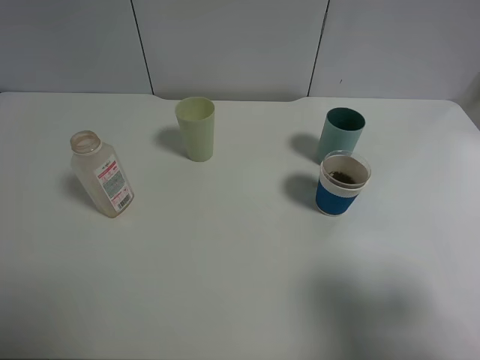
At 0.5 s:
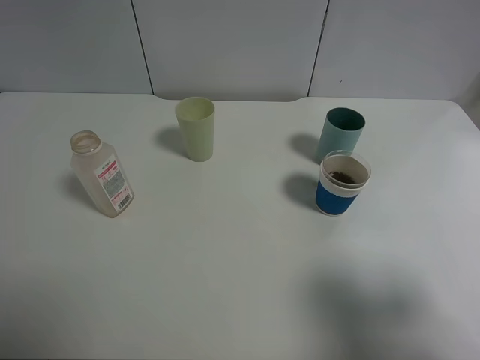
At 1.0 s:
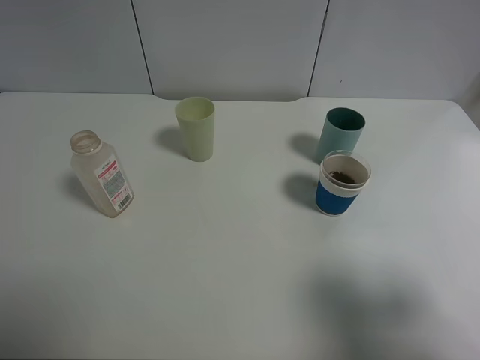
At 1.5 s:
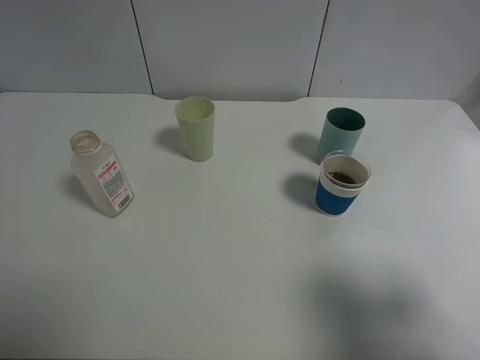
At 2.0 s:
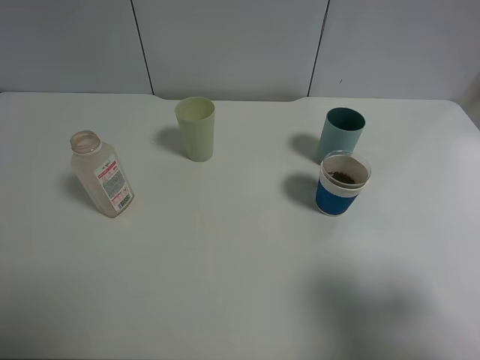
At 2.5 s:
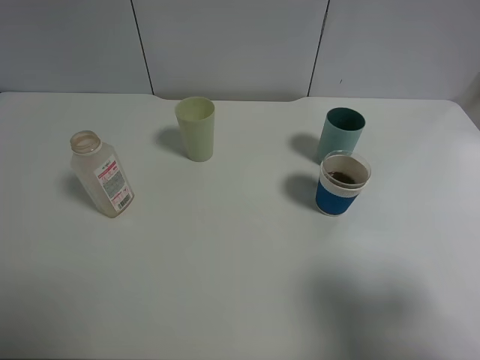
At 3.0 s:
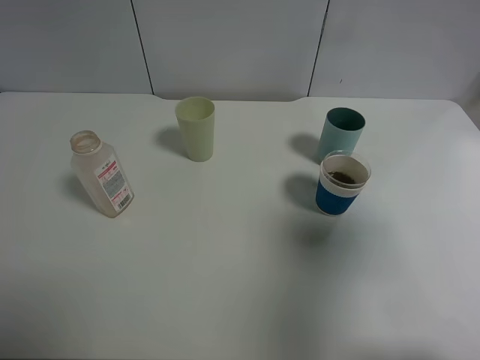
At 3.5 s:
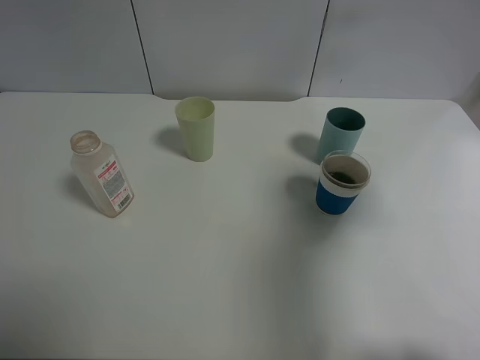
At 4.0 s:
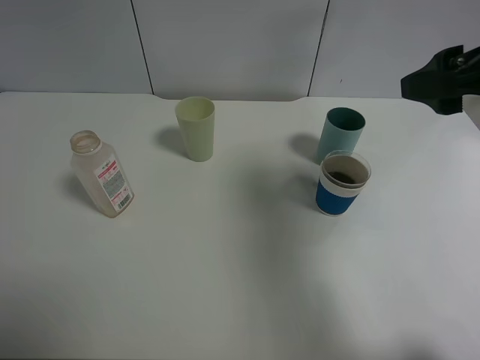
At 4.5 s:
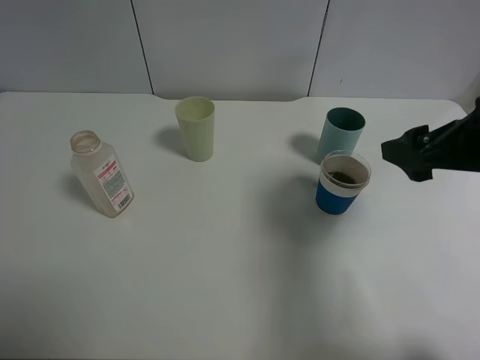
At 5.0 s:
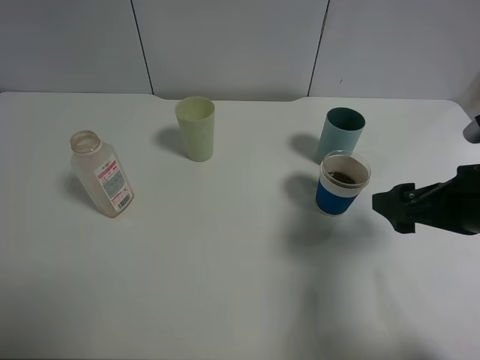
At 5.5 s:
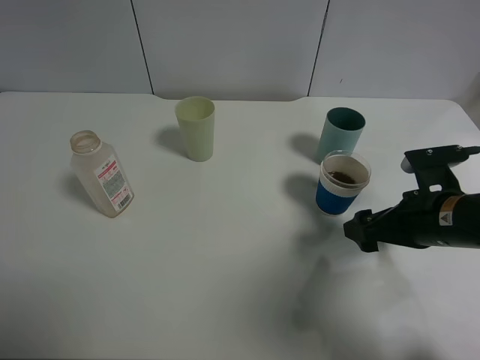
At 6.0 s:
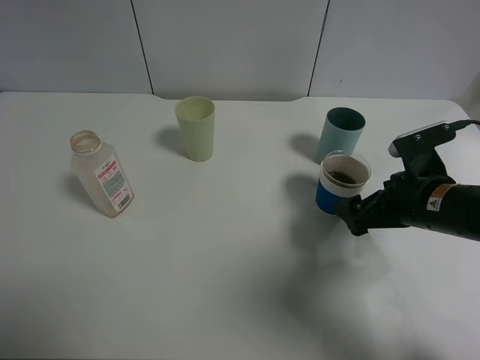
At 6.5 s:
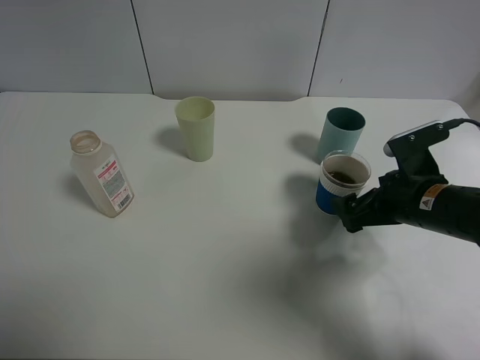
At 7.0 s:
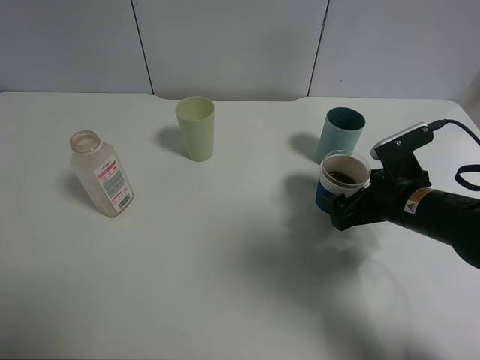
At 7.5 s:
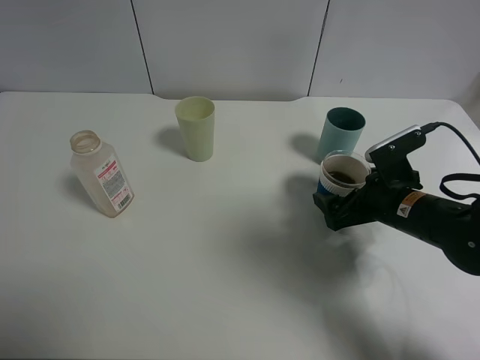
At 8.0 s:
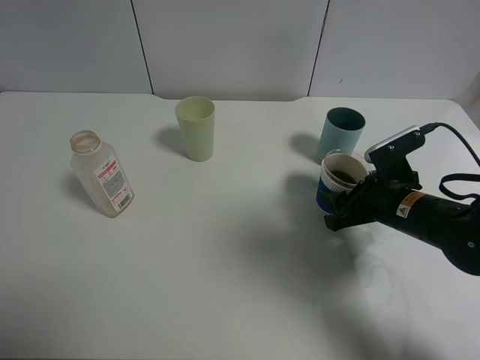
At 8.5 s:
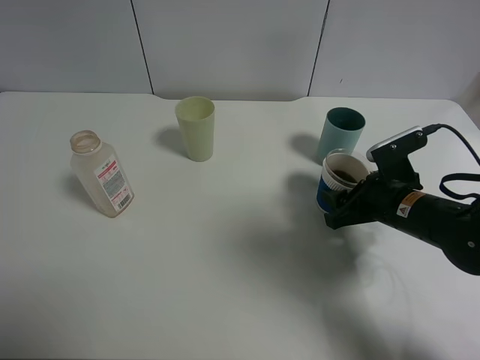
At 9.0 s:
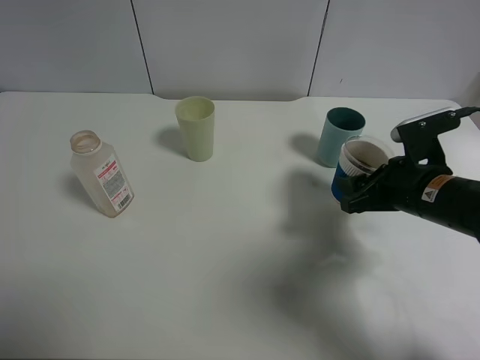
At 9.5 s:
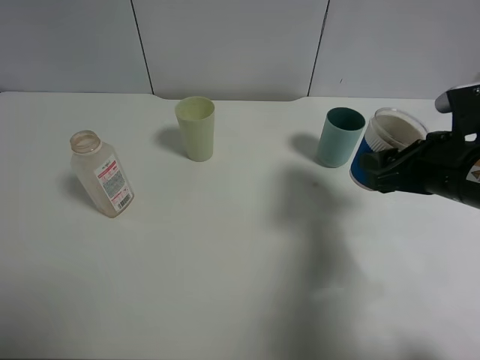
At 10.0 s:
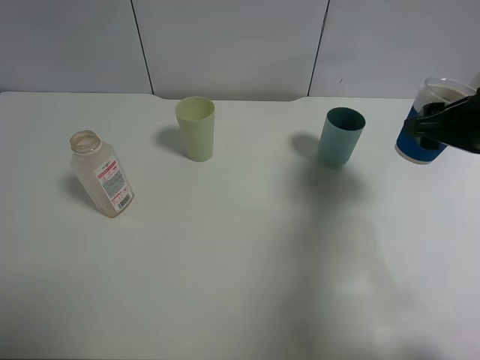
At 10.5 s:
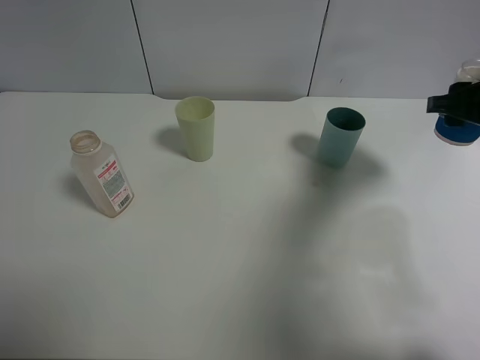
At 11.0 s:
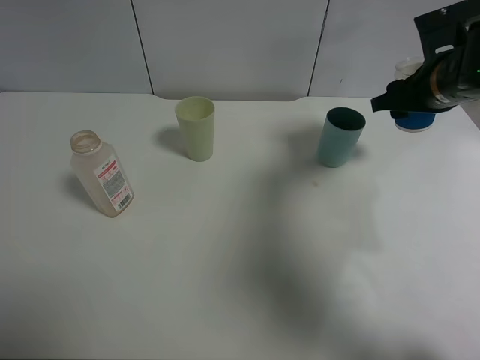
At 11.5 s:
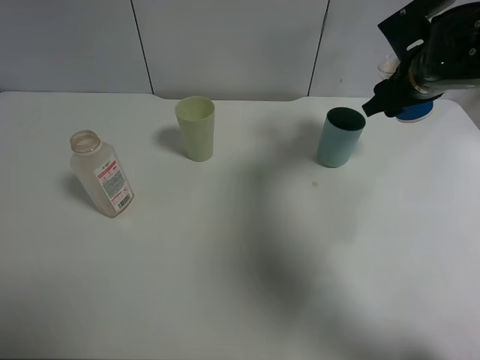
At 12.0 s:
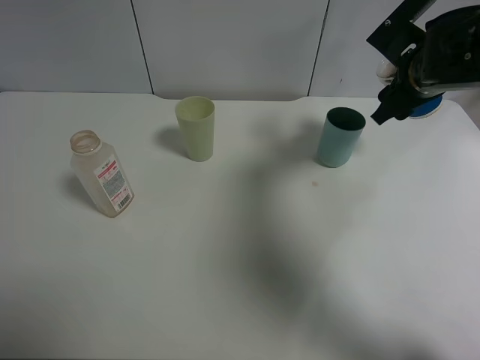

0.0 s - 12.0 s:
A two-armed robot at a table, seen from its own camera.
Task of the whole recording: use a clamp to hold the bottle of the drink, pour the beverage into a random cup, then clamp the cup containing the drink and pour the drink into another random cup.
Step, 0.0 s - 8.5 s: Pick up the paper cup with right gripper.
0.0 s - 2.0 s: Neither gripper changes place.
2.0 s - 4.0 s: The right gripper heads forward, covering roughly 20 cm.
4.0 s - 6.0 s: The right gripper shifts roughly 20 cm downward.
6.0 s - 8.0 s: The right gripper closes.
8.0 s - 10.0 s: The right gripper heads upward, covering roughly 15 cm.
10.0 s - 12.0 s: The right gripper goes approximately 10 cm forward.

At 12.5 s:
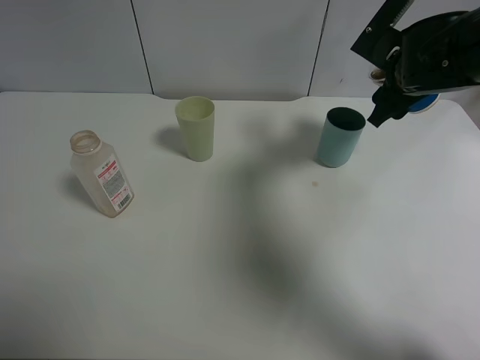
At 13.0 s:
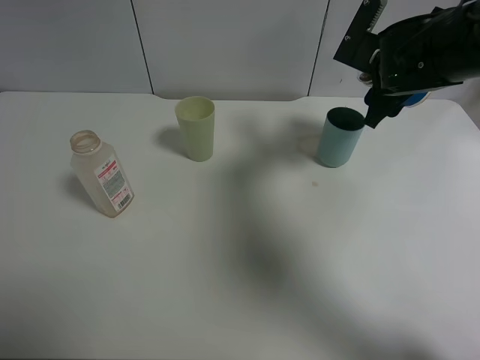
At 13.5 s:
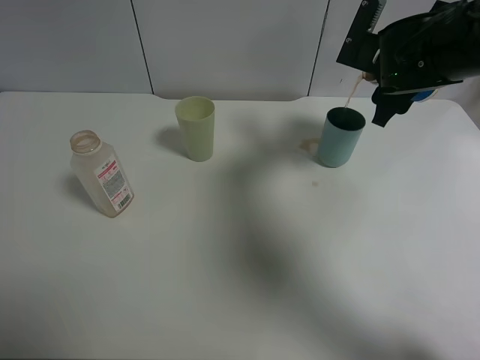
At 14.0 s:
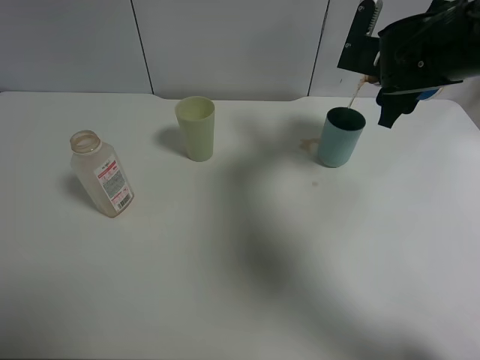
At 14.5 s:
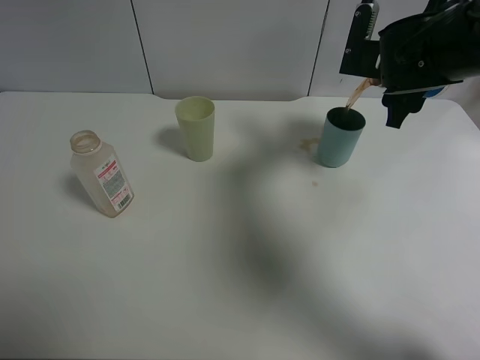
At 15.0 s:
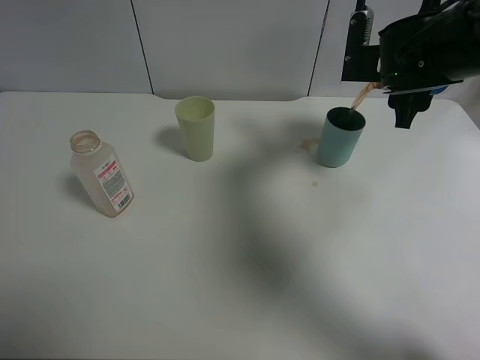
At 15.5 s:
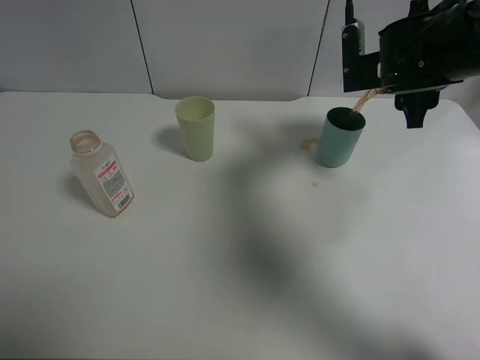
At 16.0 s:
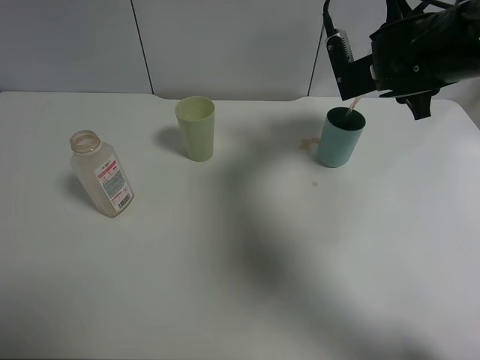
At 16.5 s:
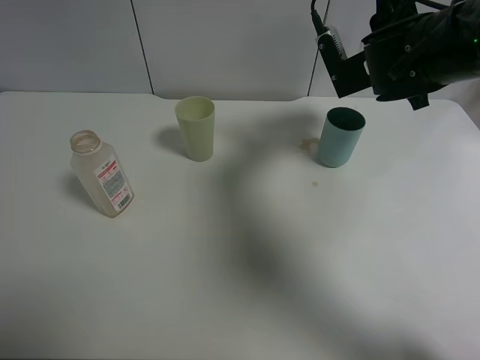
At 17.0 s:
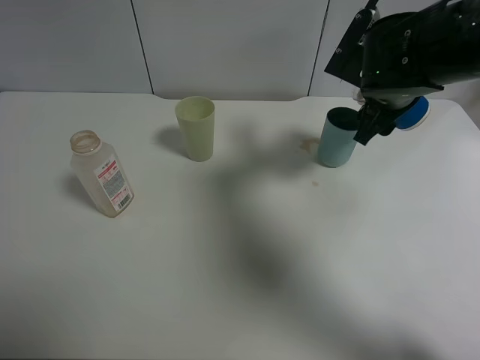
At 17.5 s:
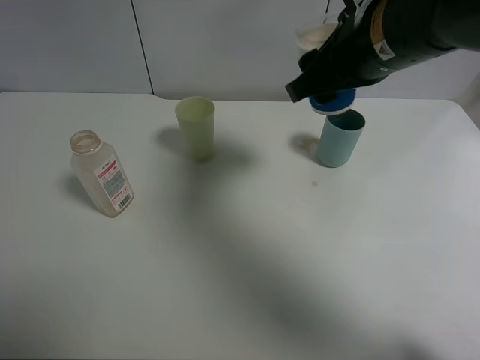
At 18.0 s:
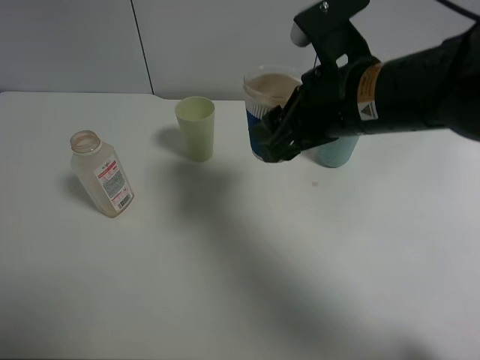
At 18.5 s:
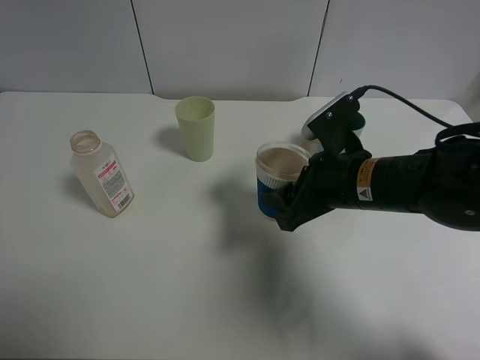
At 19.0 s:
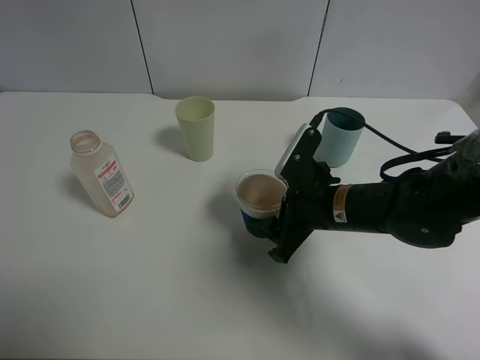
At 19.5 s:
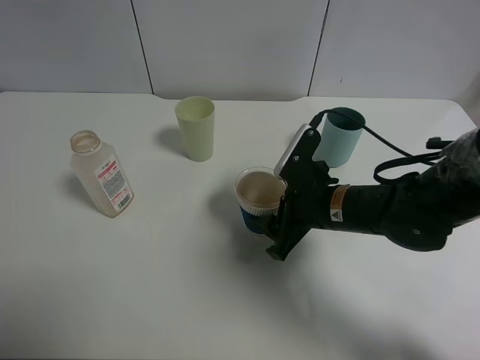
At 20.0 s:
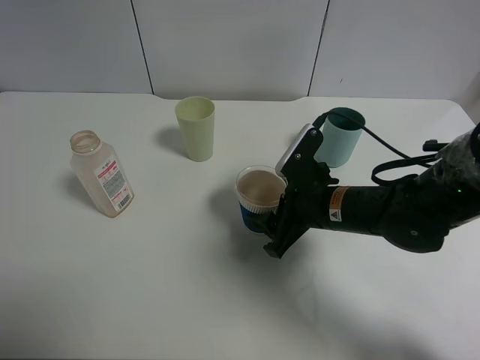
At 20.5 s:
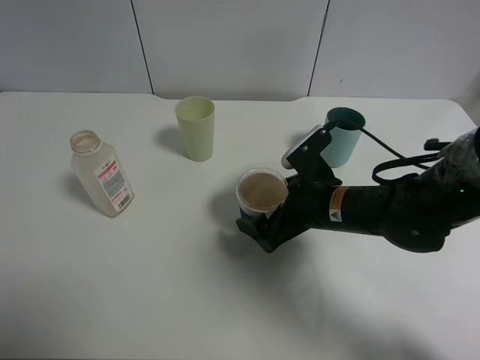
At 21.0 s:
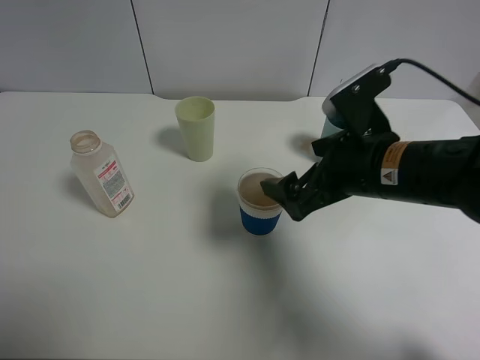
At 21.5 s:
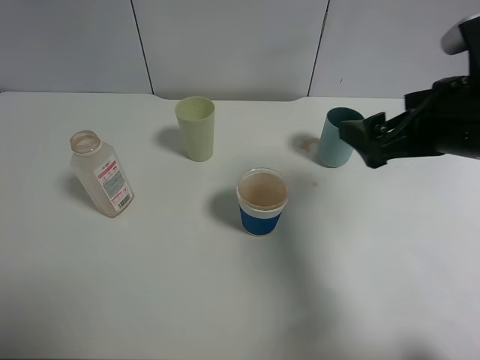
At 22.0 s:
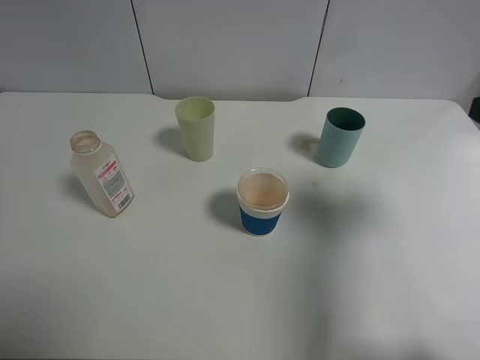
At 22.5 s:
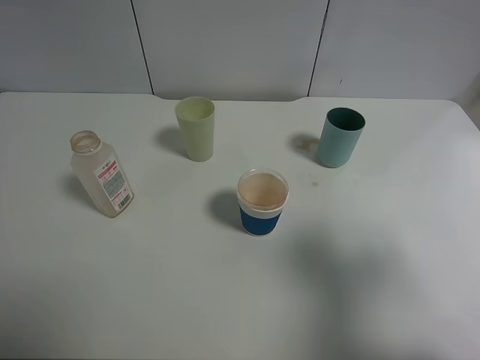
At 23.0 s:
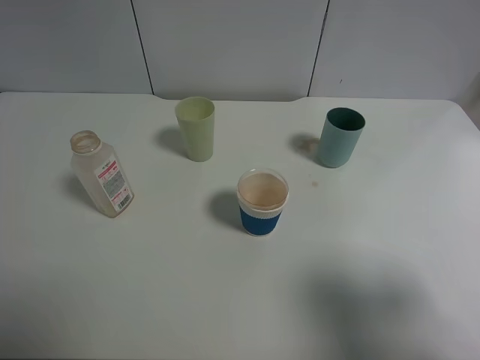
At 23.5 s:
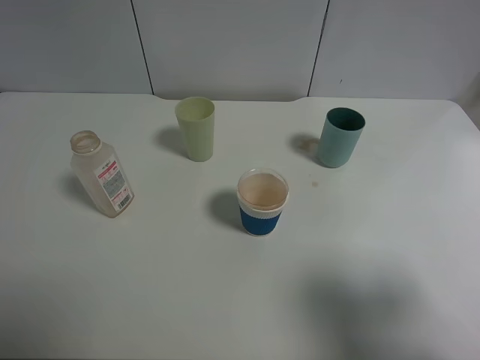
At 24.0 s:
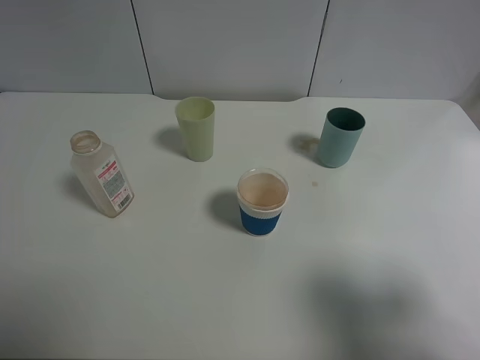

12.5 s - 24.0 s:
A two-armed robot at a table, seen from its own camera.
Task of the whole recording: use a clamp to hold the bottle of the drink, pour the beverage into a random cup, then clamp the cup containing the drink and pour the drink into another random cup.
Step, 12.5 s - 16.5 s: Pour the drink into the blue plastic cup with right gripper.
Step, 17.0 s - 20.5 s: Place the paper cup on the table with right gripper.
16.5 s - 18.5 s: The right gripper heads backward, downward and to the left, covering some 15 cm.
18.5 s - 20.0 s: The right gripper goes about 5 cm downward.
20.0 s - 22.0 s: The right gripper is displaced upward, to the right and backward by some 25 cm, and opens its fingers.
22.0 s - 24.0 s: The right gripper heads backward, covering approximately 15 cm.
